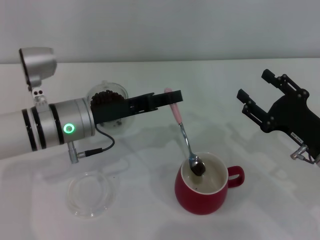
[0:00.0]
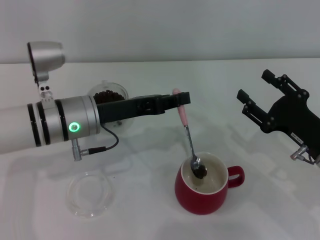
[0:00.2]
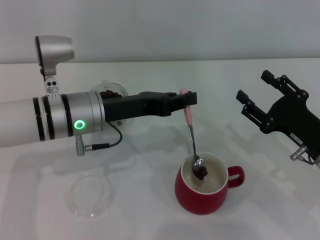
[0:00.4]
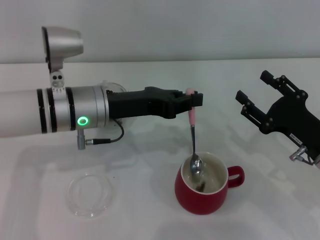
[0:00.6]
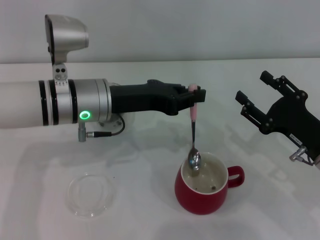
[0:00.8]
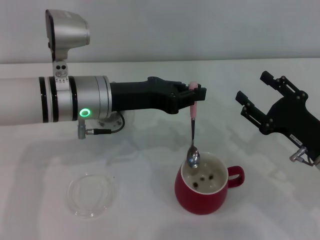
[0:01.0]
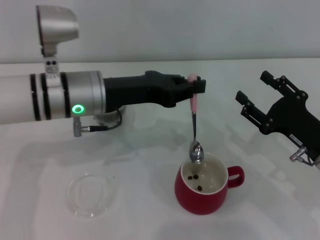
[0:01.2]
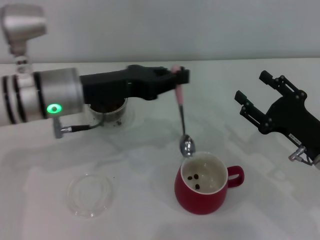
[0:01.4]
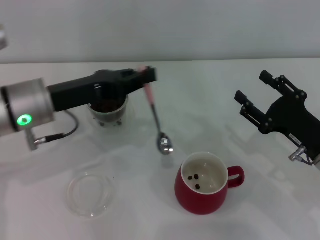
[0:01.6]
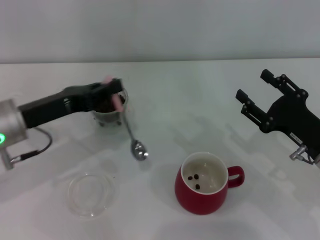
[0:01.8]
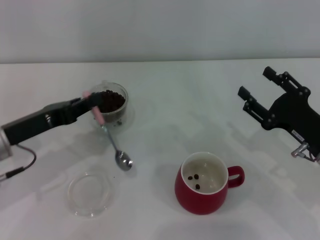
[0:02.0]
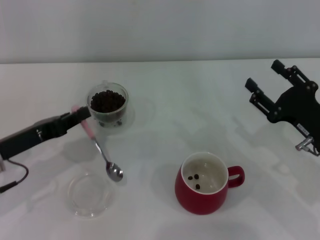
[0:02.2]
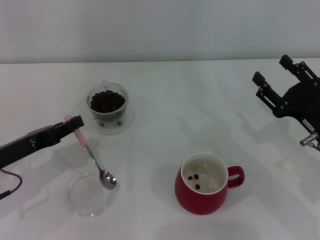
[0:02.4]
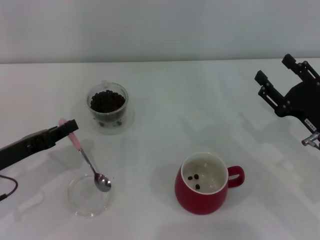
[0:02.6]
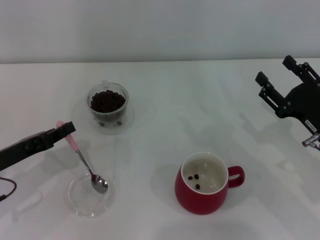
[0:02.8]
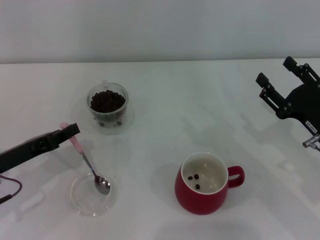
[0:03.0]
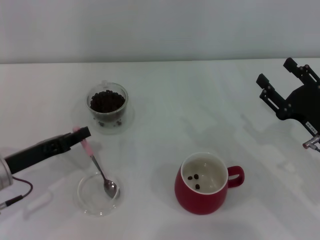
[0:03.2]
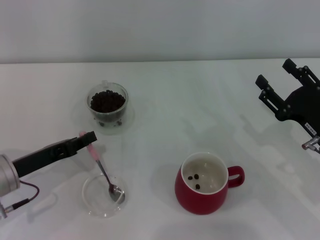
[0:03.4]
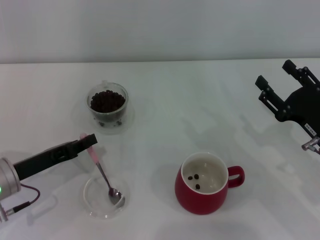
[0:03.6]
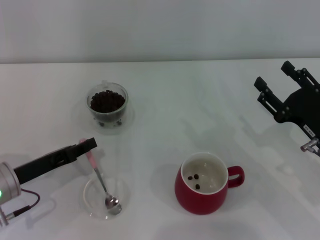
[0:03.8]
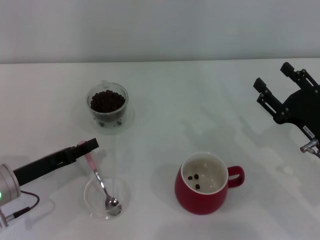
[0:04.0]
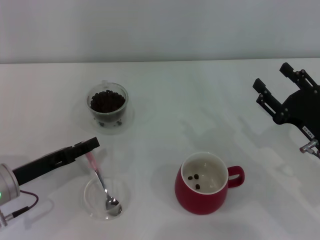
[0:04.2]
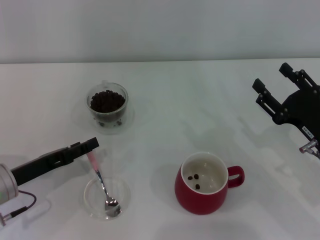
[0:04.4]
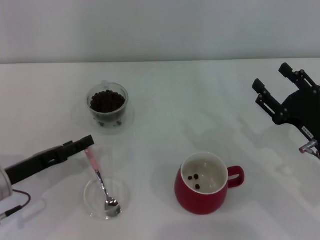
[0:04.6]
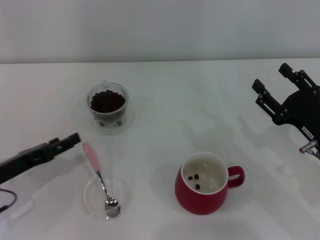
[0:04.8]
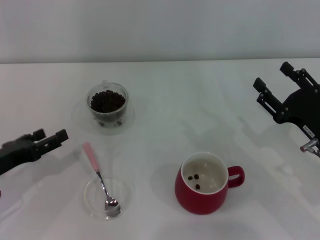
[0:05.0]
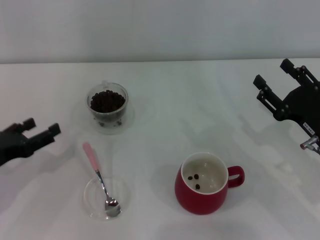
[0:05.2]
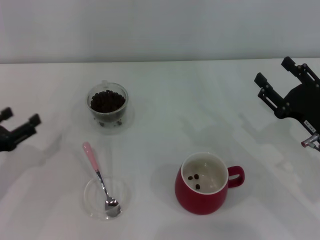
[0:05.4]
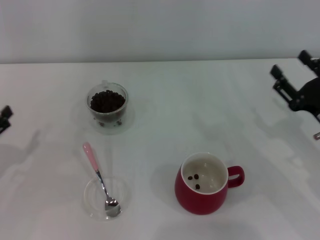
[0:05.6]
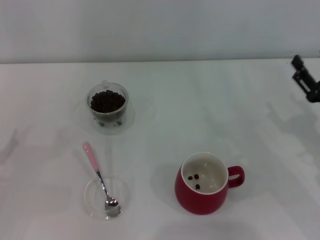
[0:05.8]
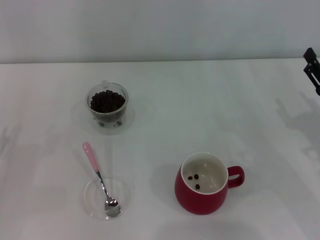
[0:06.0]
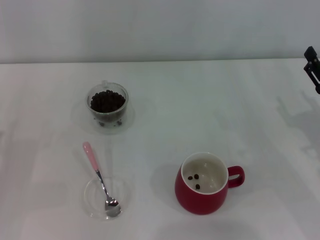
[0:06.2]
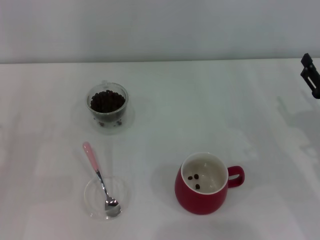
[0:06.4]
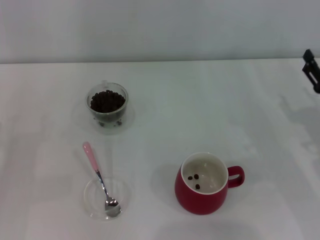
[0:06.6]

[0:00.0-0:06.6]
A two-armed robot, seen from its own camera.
Task of the whole recording: Use a pink spoon to take out the coffee beans from the glass and pour them into the red cup.
0:00.0 to 0:01.6: The left gripper heads to the left, covering about 5 cm.
0:01.6 to 0:03.2: The left gripper goes roughly 10 cm downward and to the left.
0:03.2 to 0:05.0: The left gripper opens up.
0:05.0 to 0:06.6: The left gripper travels to the left by some 5 cm.
